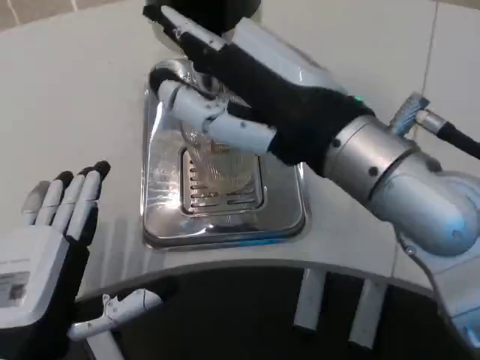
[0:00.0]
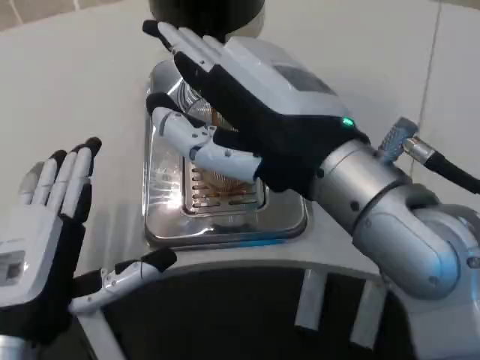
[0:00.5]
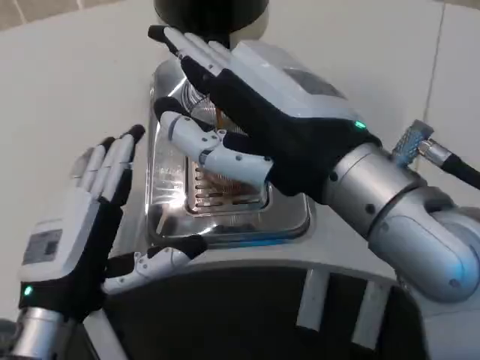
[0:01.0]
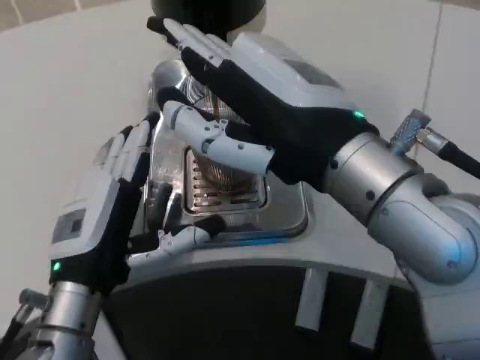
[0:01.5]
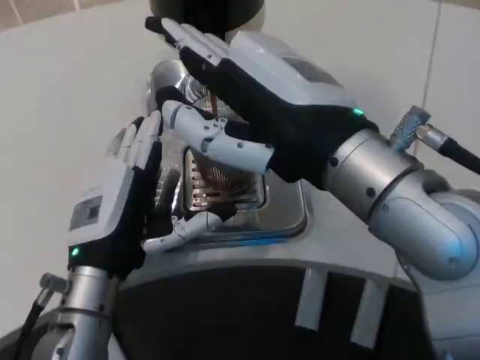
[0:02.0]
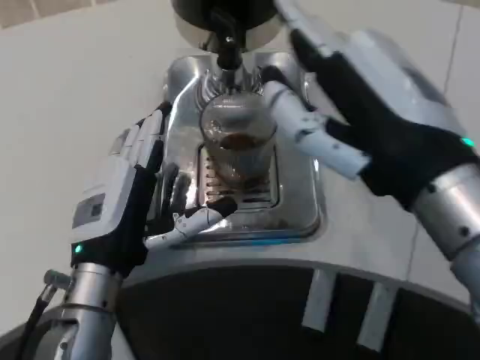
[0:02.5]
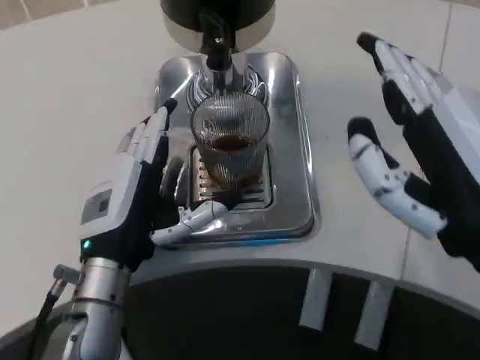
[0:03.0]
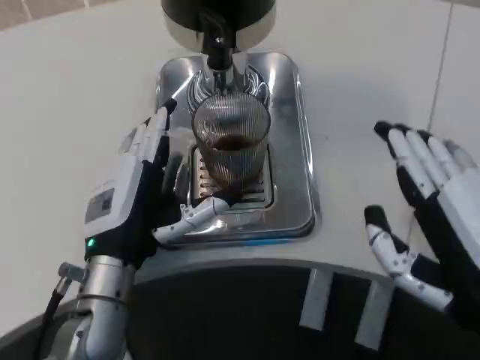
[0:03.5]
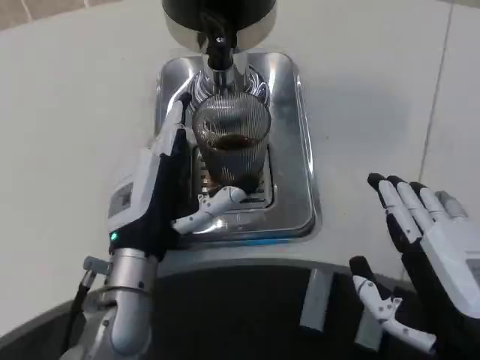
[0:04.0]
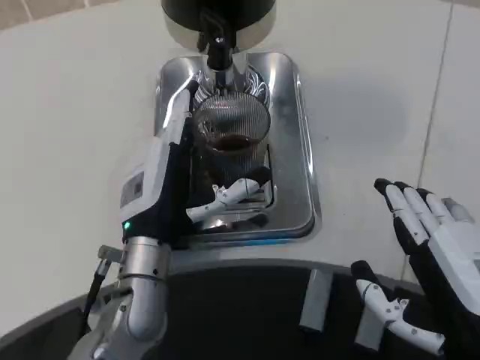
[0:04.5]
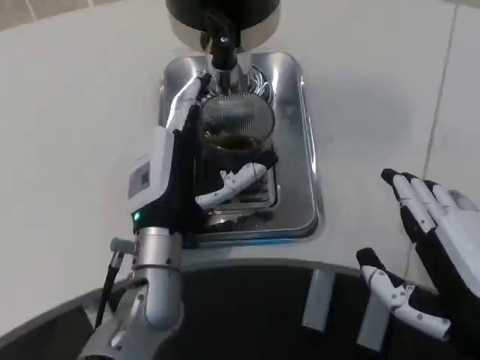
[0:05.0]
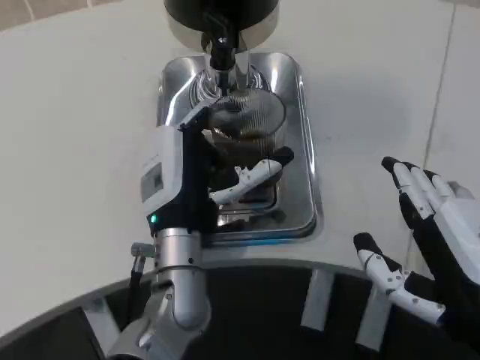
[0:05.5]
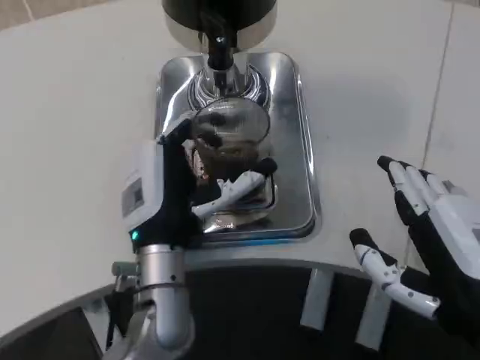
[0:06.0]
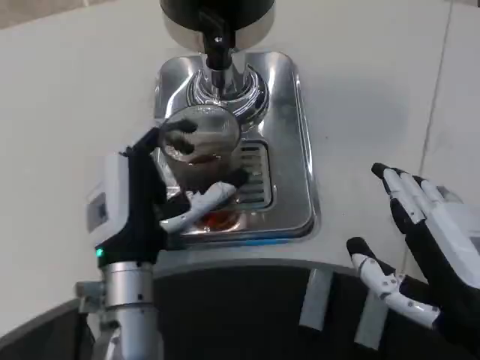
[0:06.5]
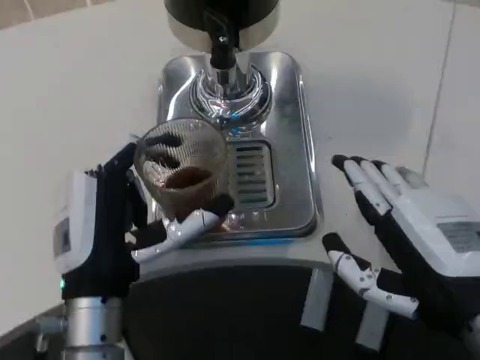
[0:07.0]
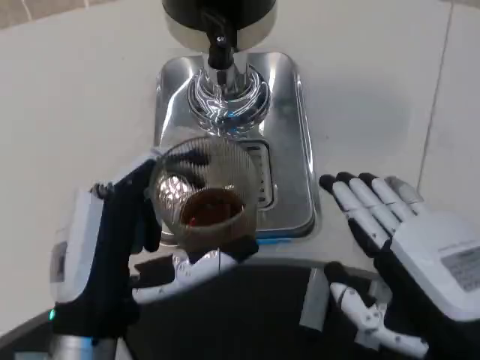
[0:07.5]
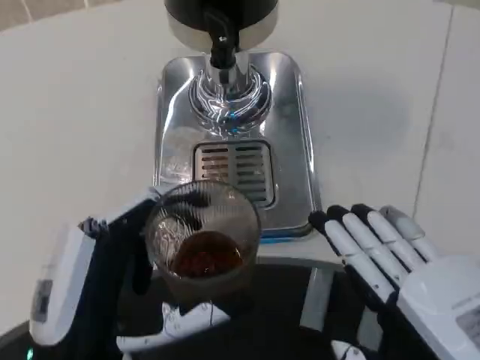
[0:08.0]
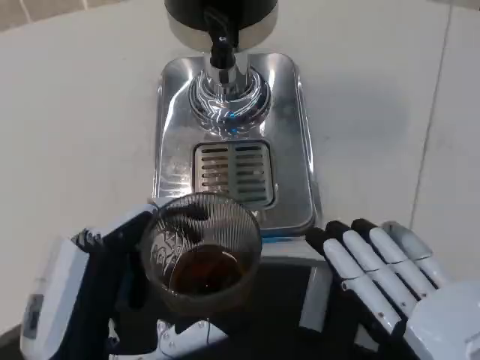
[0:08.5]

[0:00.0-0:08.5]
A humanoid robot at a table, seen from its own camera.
Task of the whole recording: Grasp the cup under the faucet to collect the drink, then remove the cup.
0:00.0 to 0:02.0: The left hand travels forward by roughly 10 cm.
0:02.0 to 0:04.0: The right hand goes some 15 cm downward, to the right and backward.
0:04.0 to 0:06.5: There are only small adjustments of the hands.
0:06.5 to 0:08.5: The right hand is displaced backward by approximately 10 cm; the left hand heads backward, covering approximately 15 cm.

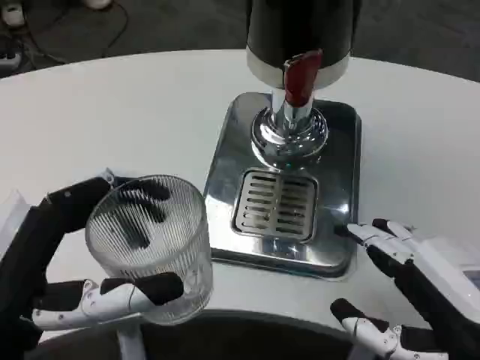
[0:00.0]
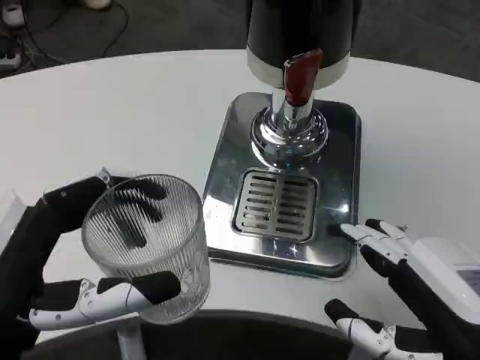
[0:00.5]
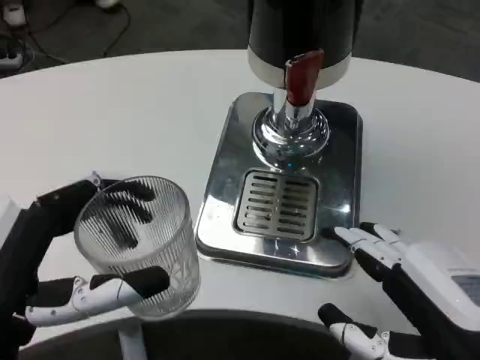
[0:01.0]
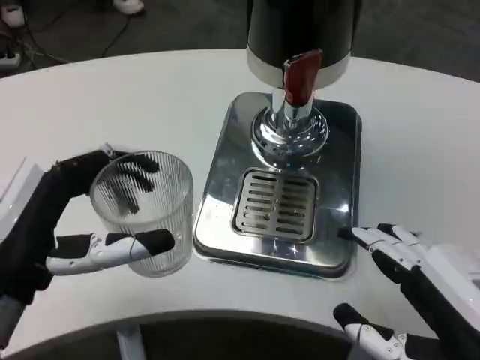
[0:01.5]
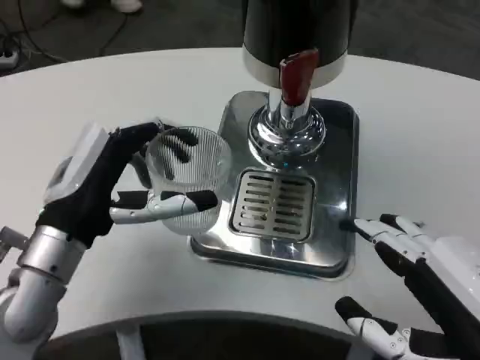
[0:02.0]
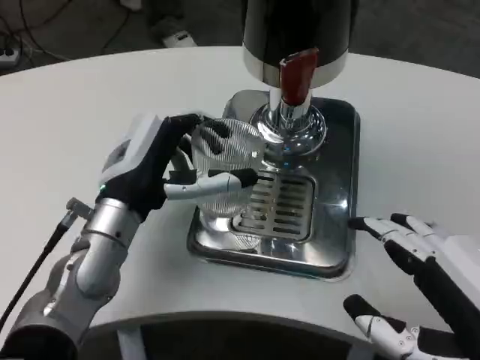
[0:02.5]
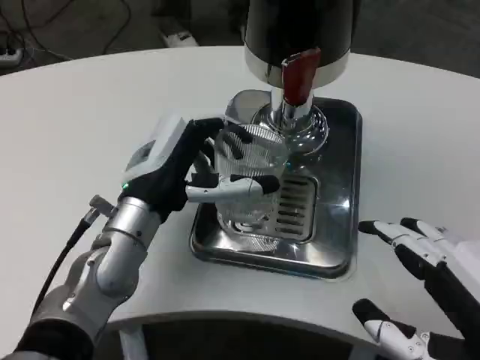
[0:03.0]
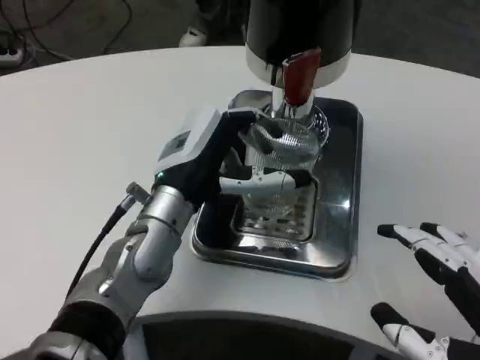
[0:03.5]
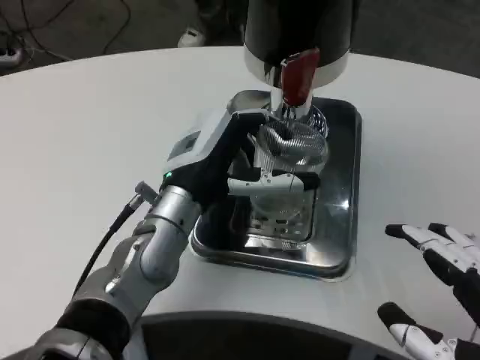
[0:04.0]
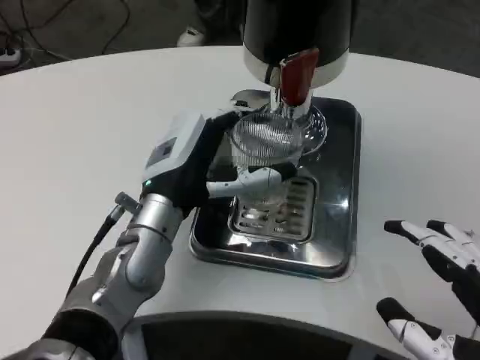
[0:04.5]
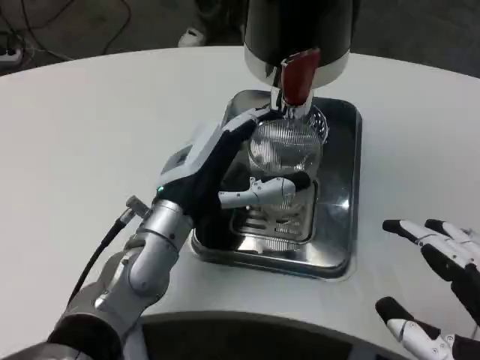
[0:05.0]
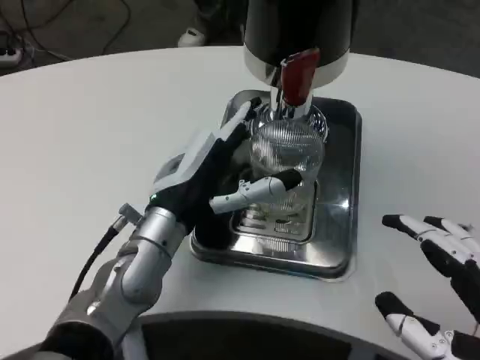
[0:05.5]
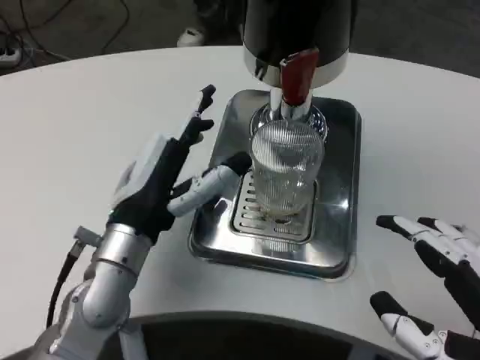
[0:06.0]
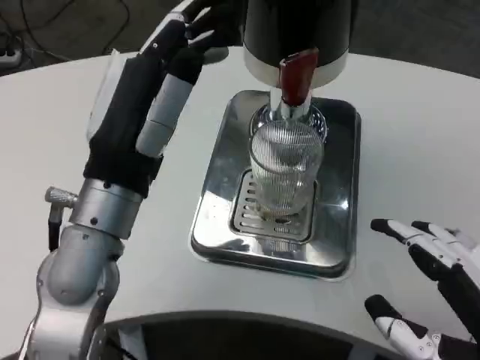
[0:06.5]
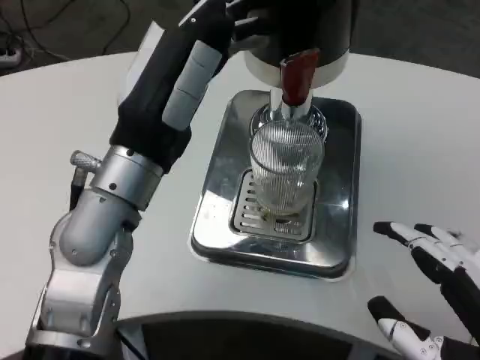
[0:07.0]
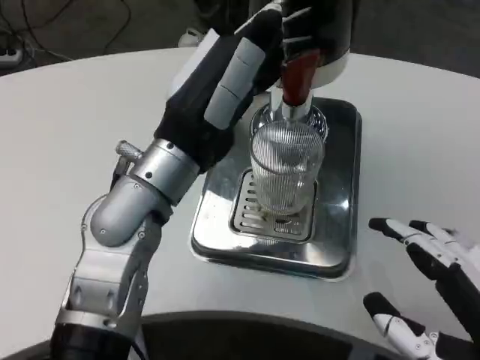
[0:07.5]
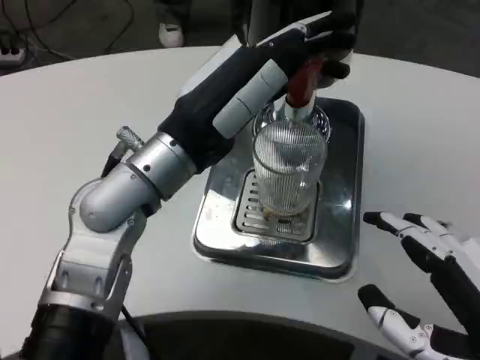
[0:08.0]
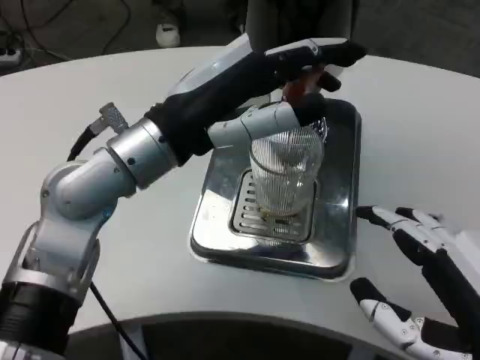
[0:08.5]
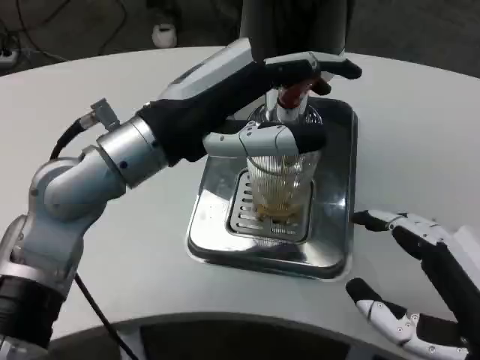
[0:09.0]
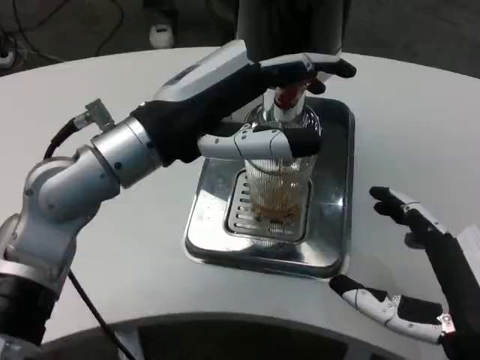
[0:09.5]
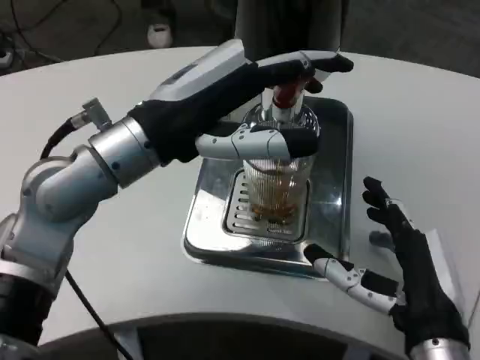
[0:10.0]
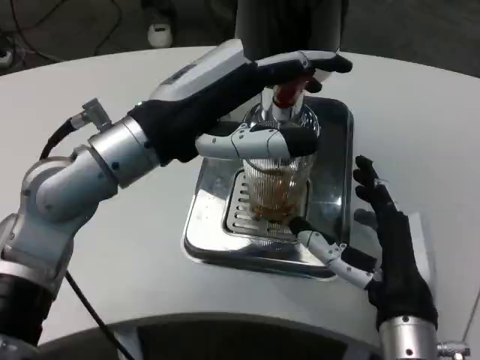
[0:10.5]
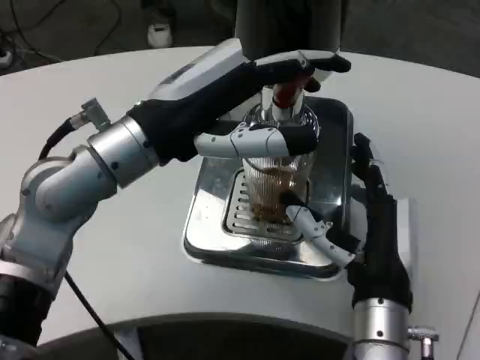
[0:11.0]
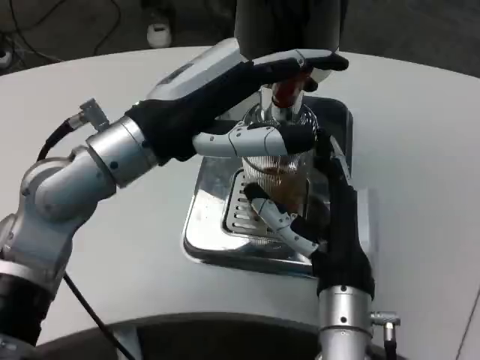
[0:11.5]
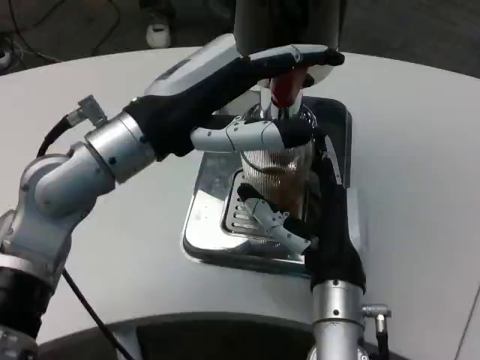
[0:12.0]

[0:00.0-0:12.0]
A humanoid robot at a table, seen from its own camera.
Task of the whole recording: Grasp the cup under the faucet to collect the drink, then remove the cup.
0:00.0 to 0:02.0: The left hand shifts roughly 15 cm forward.
0:02.0 to 0:04.0: The left hand heads to the right and forward, covering about 10 cm.
0:04.0 to 0:06.0: The left hand moves approximately 5 cm.
0:06.0 to 0:08.0: The left hand moves upward, approximately 10 cm.
0:08.0 to 0:10.0: The right hand is displaced forward, downward and to the left by roughly 15 cm.
0:10.0 to 0:12.0: The right hand moves to the left and forward, about 10 cm.

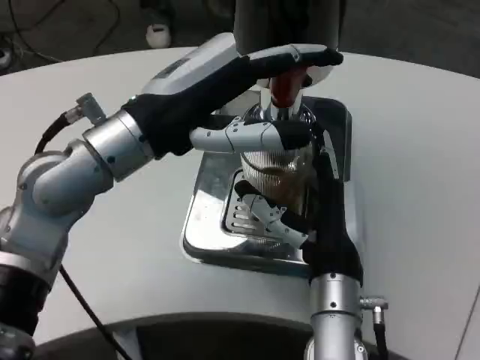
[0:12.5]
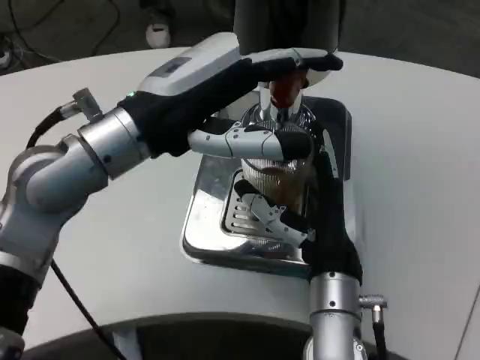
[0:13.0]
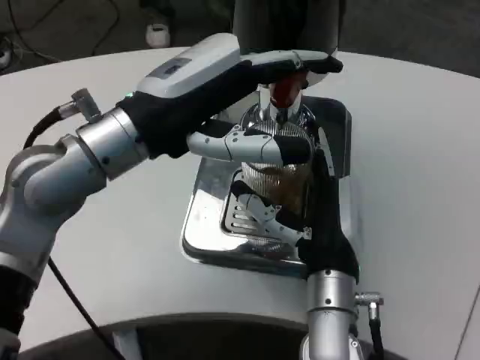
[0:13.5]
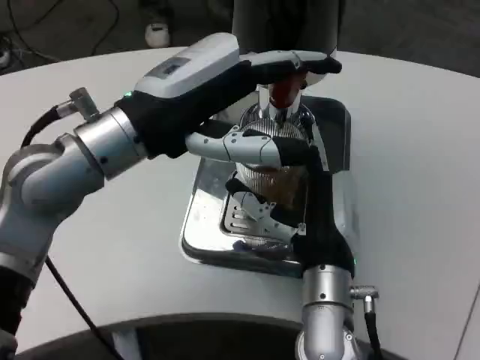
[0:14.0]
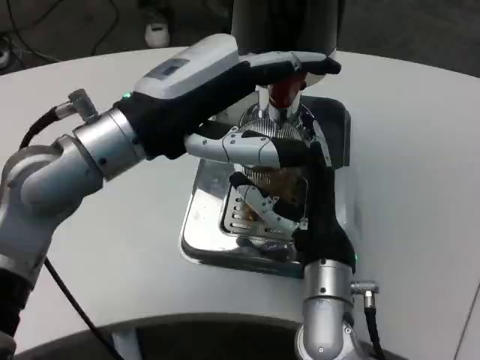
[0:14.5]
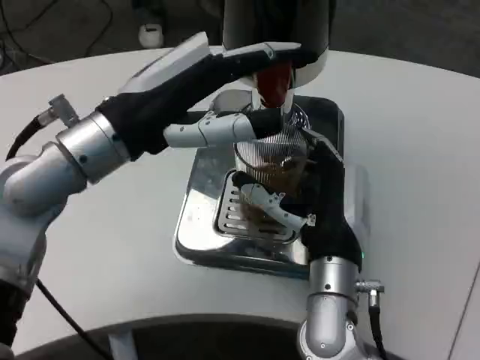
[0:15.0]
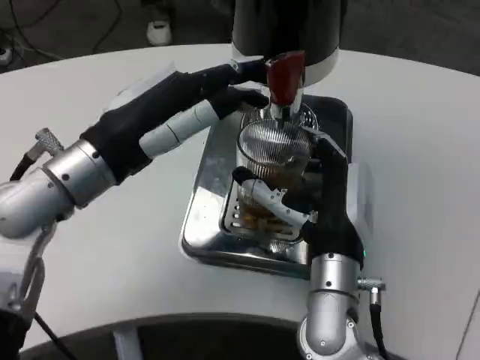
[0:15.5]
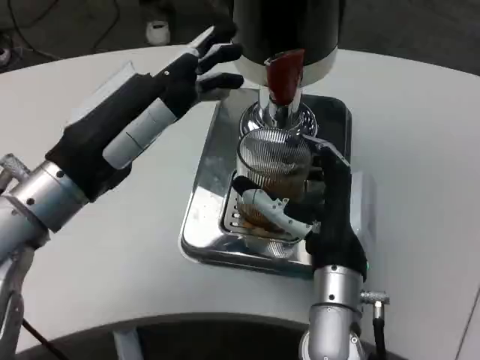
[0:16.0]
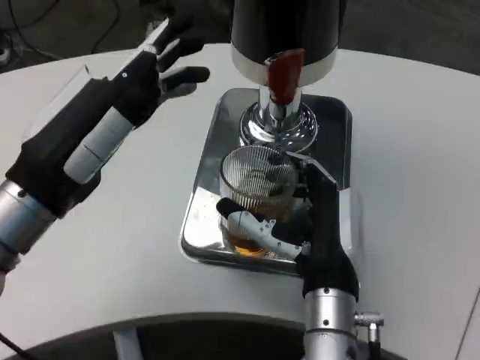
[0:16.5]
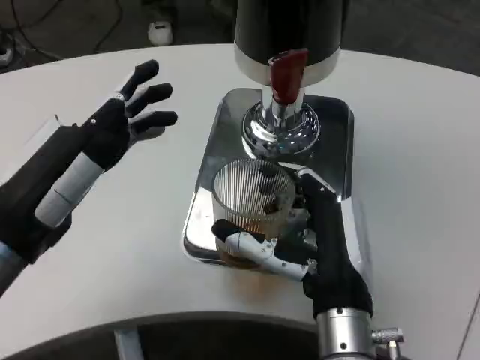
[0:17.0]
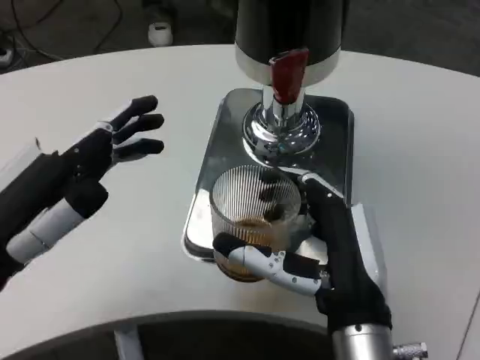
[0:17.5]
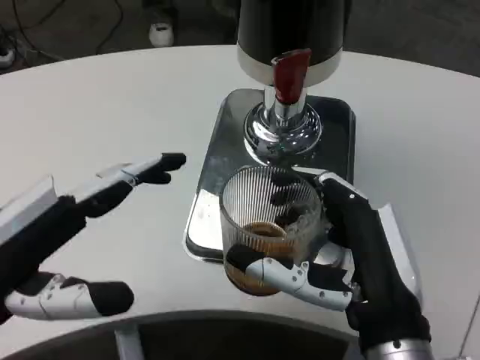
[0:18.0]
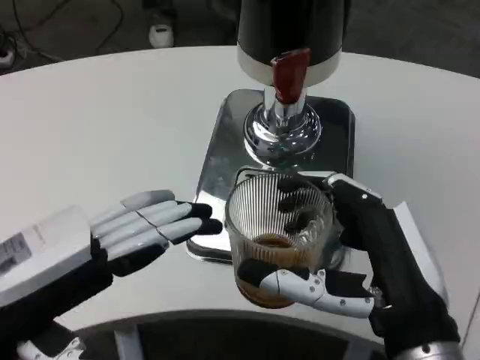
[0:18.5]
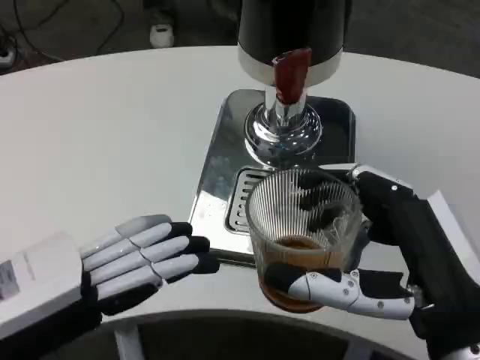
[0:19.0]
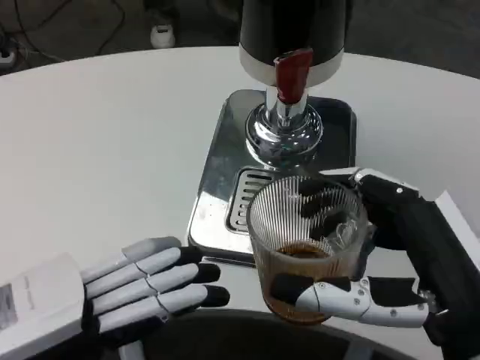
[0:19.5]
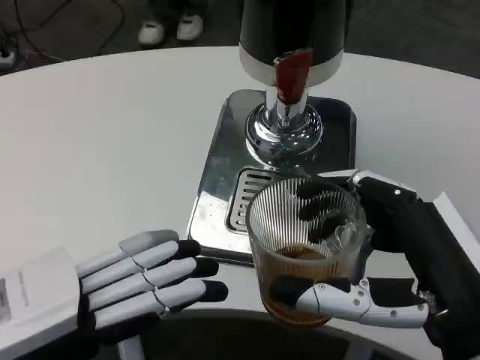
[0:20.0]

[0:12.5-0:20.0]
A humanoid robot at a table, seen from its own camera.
Task of the whole recording: Grasp the cup under the faucet to collect the drink, then remove the cup.
0:14.5 to 0:16.5: The left hand goes some 10 cm to the left and backward.
0:16.5 to 0:18.0: The left hand goes roughly 10 cm backward and to the left, while the right hand travels backward and to the right by approximately 10 cm.
0:18.0 to 0:20.0: The right hand is displaced to the right by roughly 5 cm.
